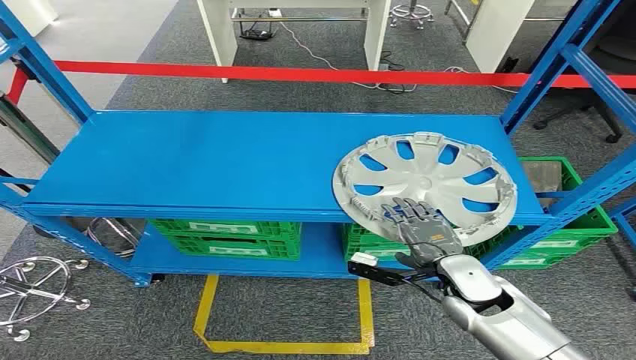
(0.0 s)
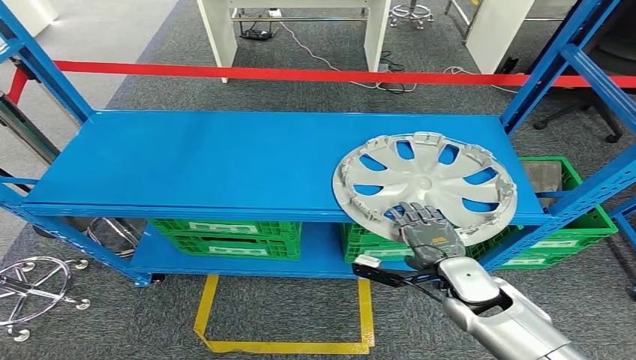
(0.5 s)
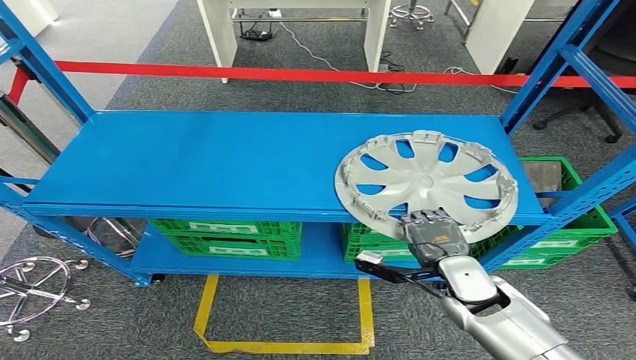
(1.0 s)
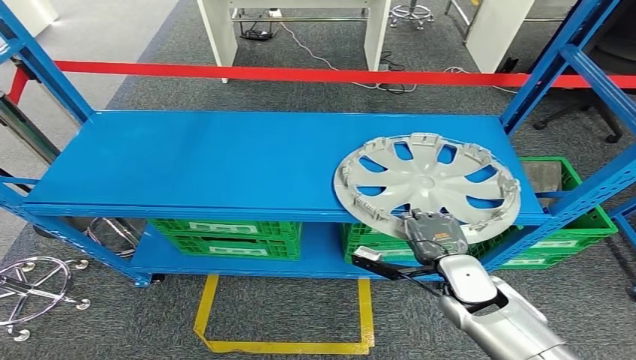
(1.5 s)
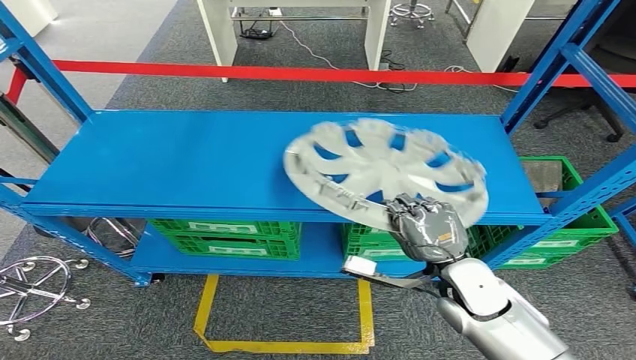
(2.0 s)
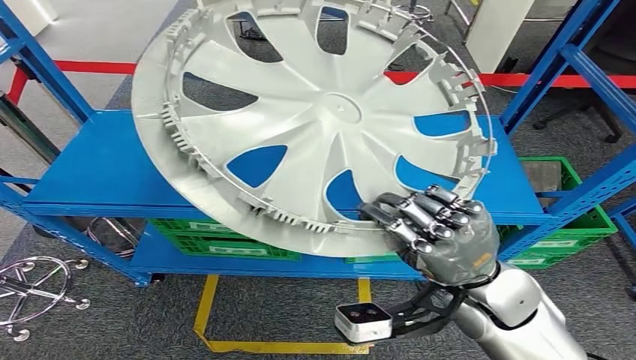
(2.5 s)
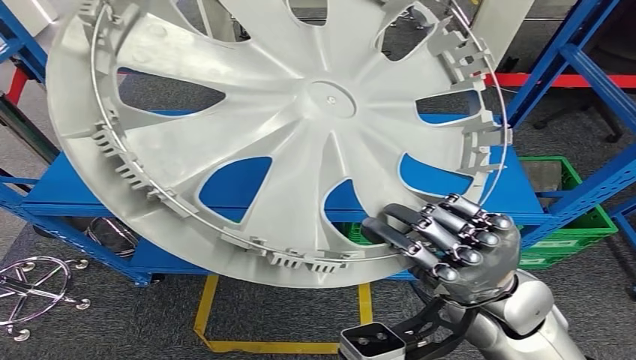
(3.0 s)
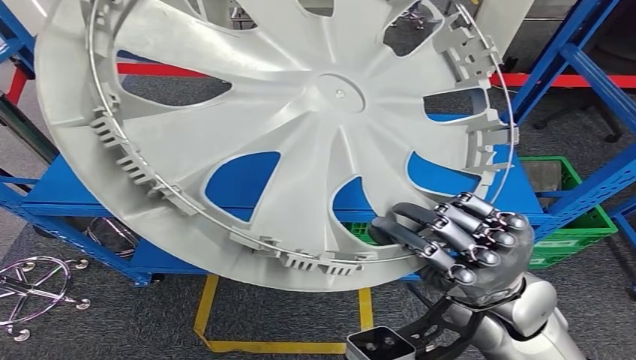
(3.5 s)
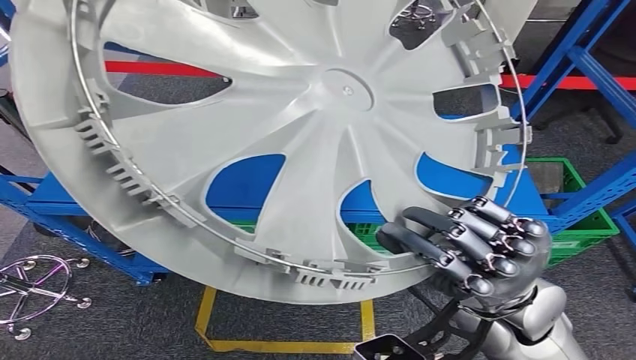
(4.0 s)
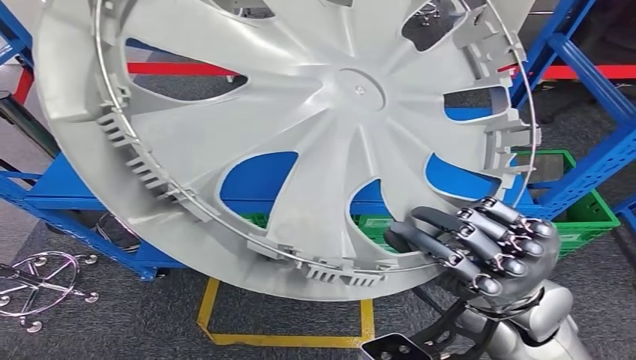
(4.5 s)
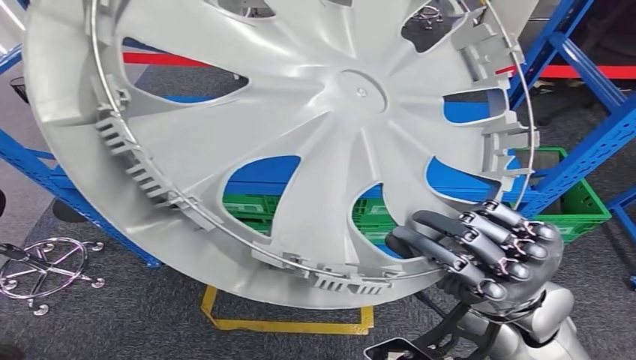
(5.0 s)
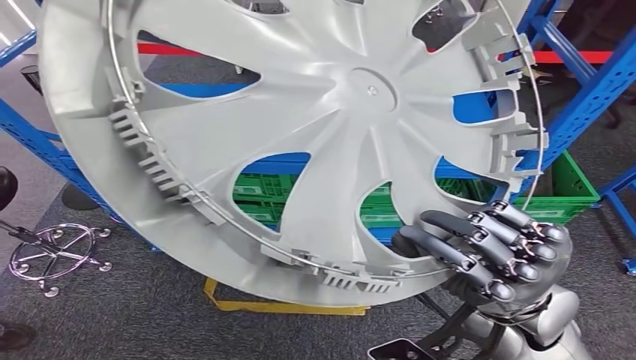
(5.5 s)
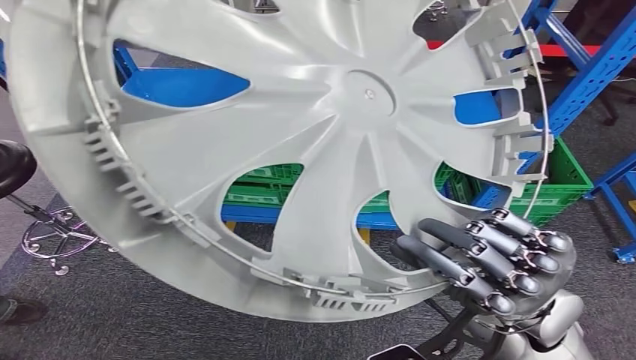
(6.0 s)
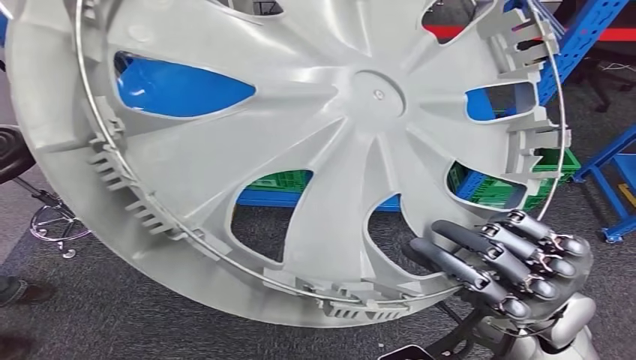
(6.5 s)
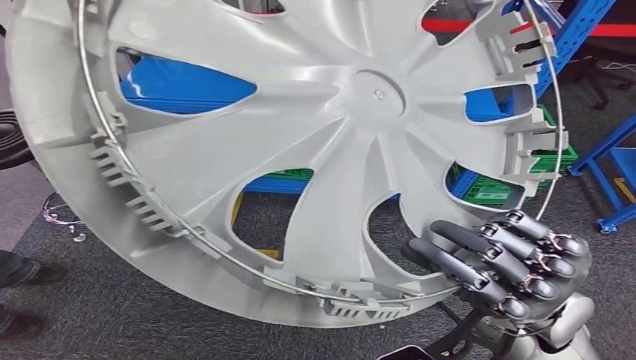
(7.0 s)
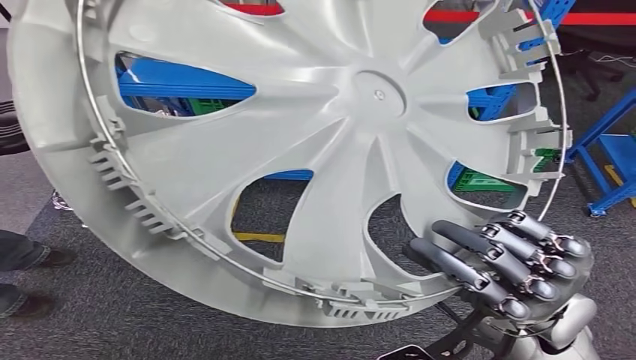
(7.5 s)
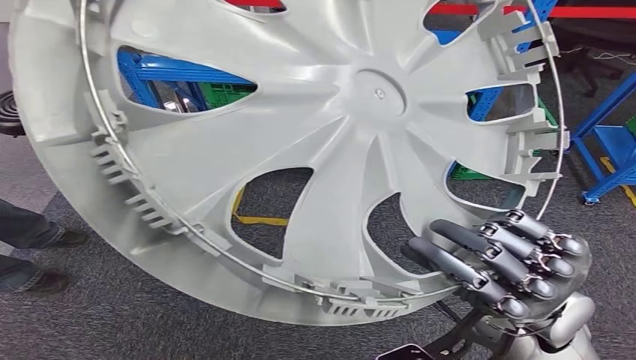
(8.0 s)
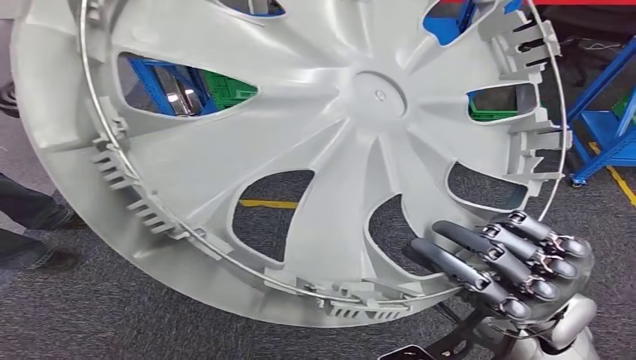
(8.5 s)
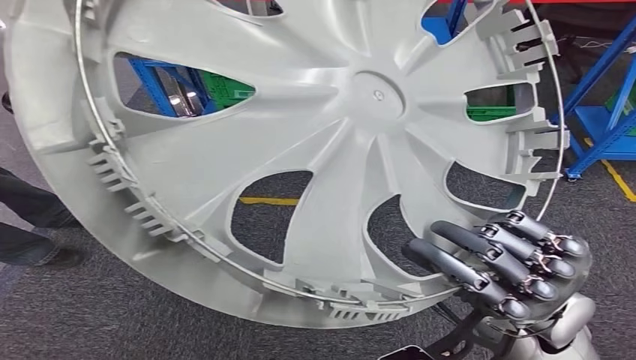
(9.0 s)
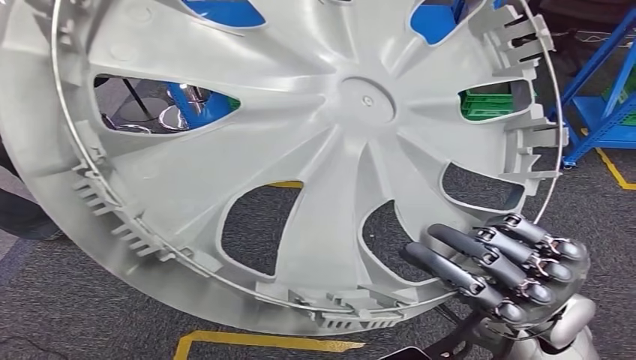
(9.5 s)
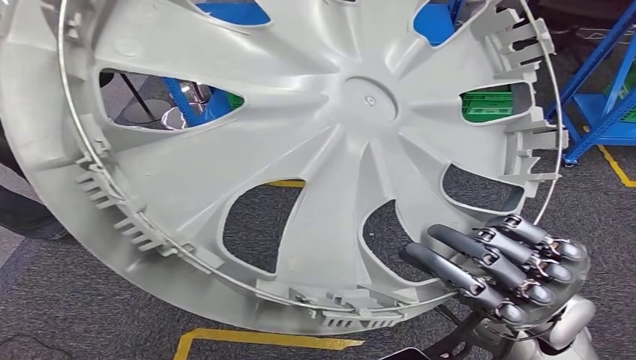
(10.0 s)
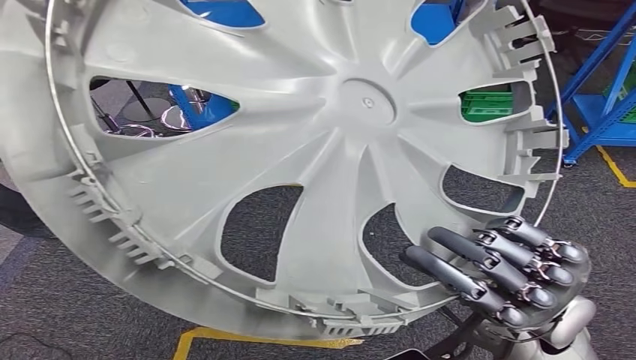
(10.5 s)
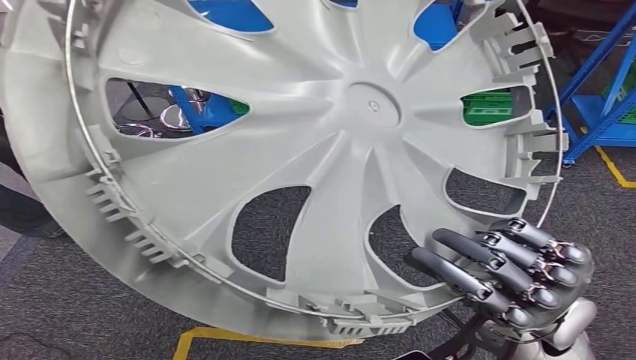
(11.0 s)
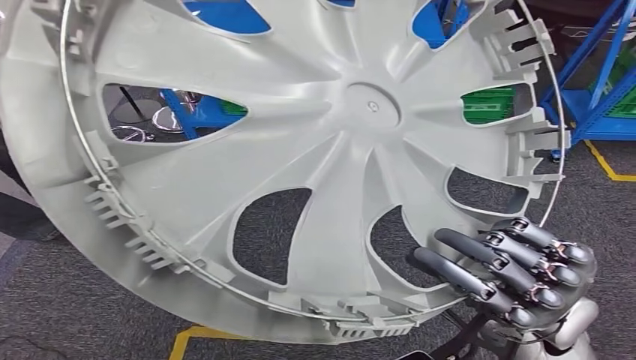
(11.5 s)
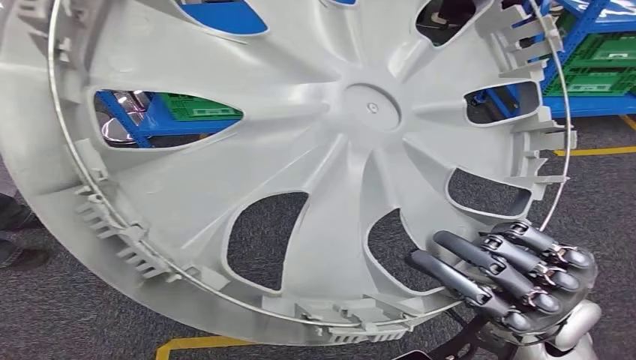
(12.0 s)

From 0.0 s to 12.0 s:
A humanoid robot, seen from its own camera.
Step, from 0.0 s to 3.5 s: Pick up the small component from the shelf.

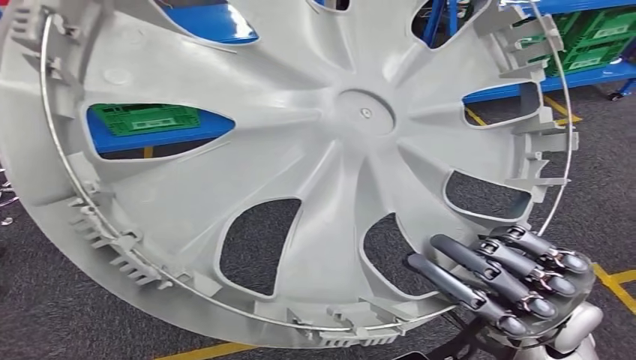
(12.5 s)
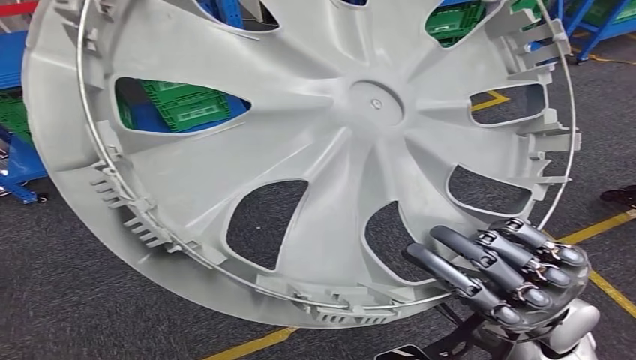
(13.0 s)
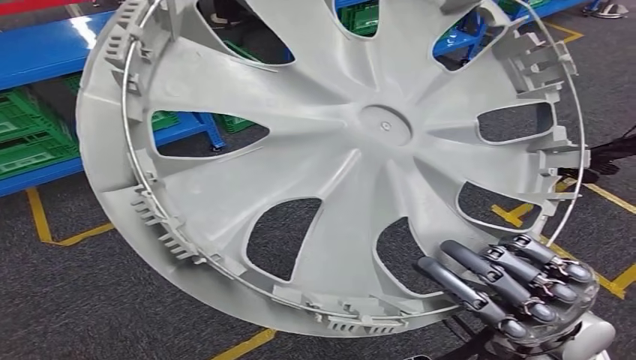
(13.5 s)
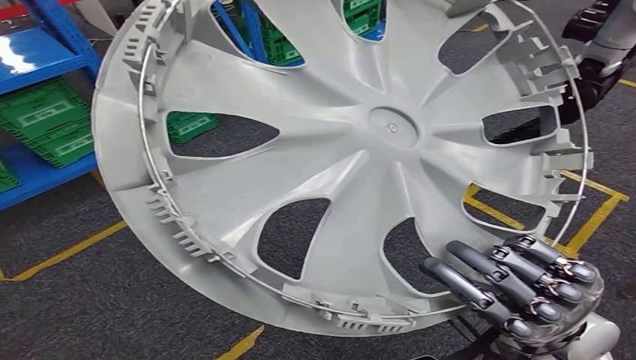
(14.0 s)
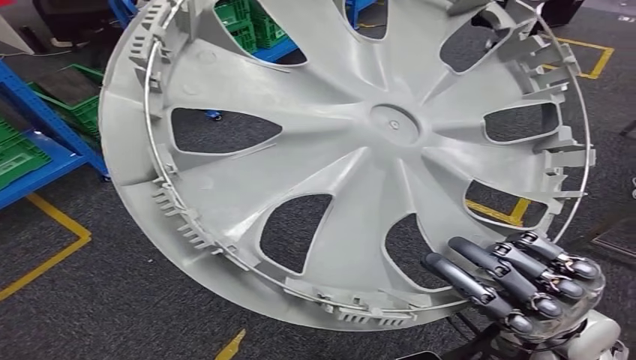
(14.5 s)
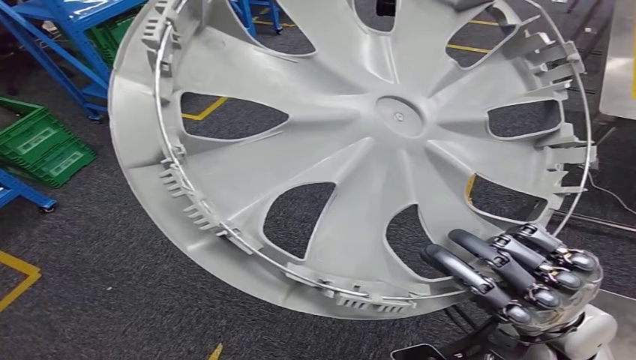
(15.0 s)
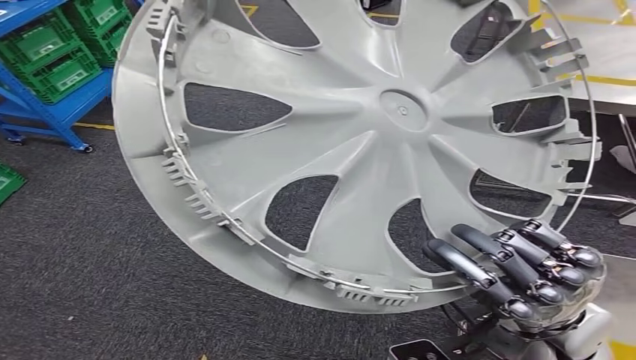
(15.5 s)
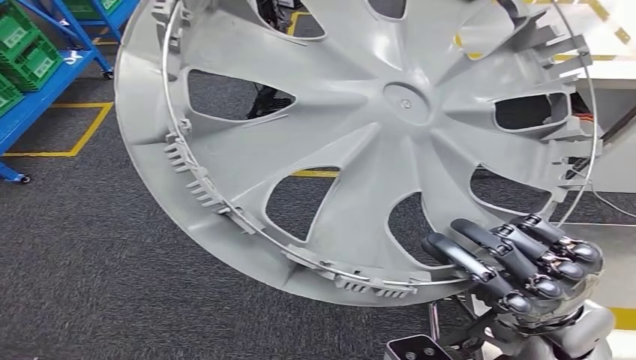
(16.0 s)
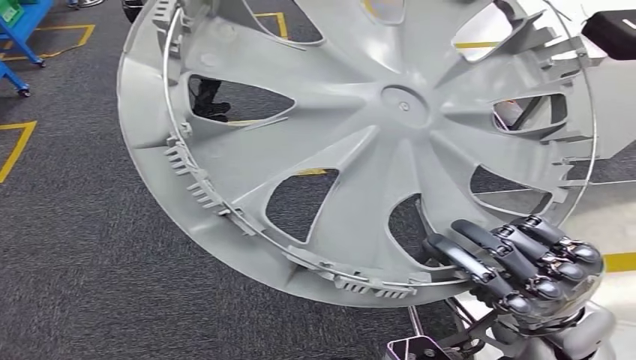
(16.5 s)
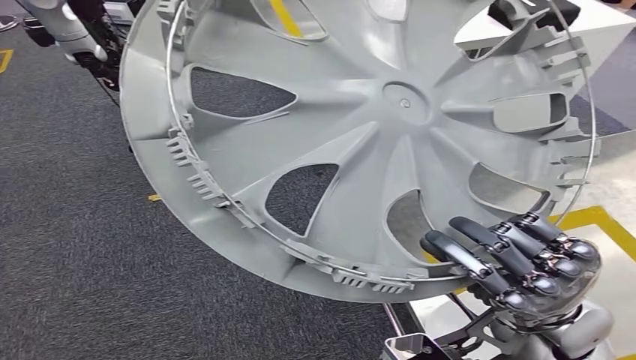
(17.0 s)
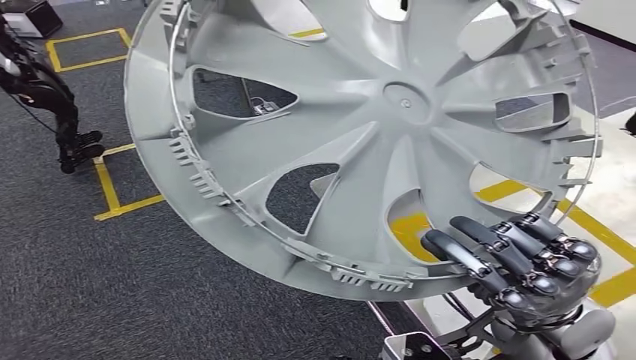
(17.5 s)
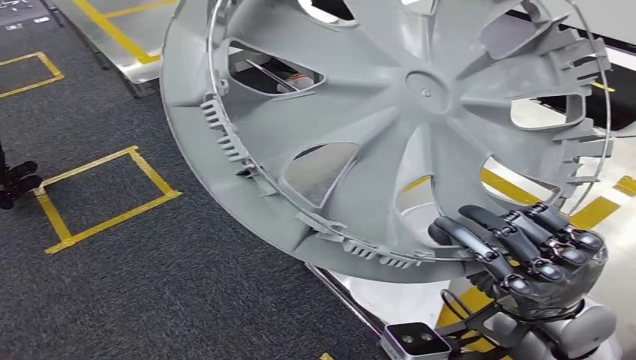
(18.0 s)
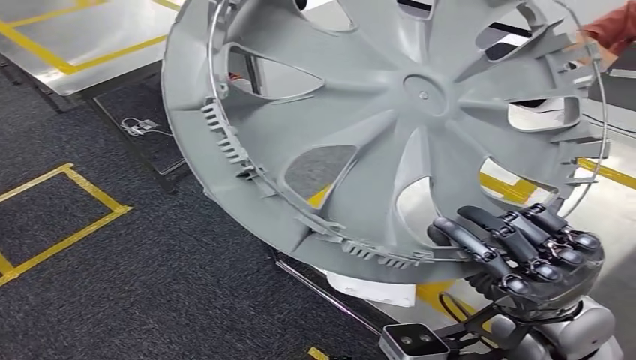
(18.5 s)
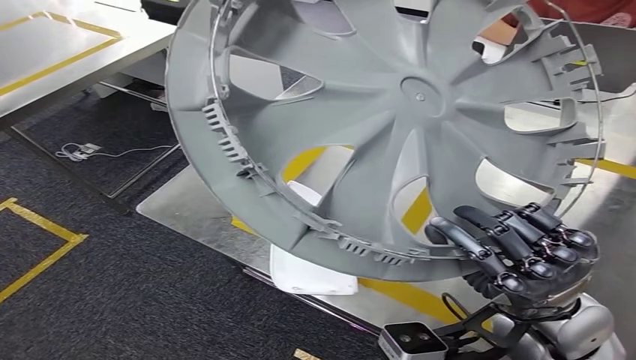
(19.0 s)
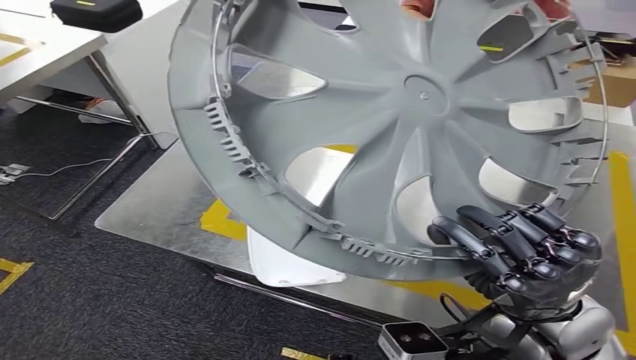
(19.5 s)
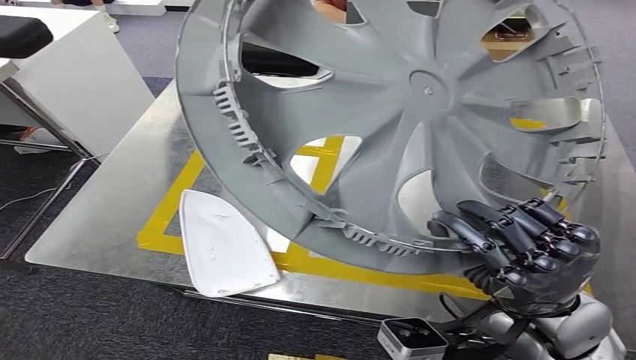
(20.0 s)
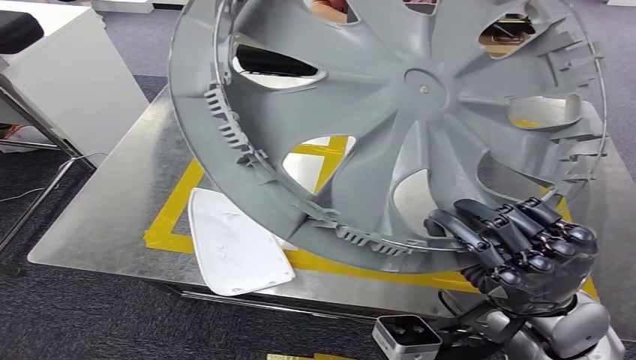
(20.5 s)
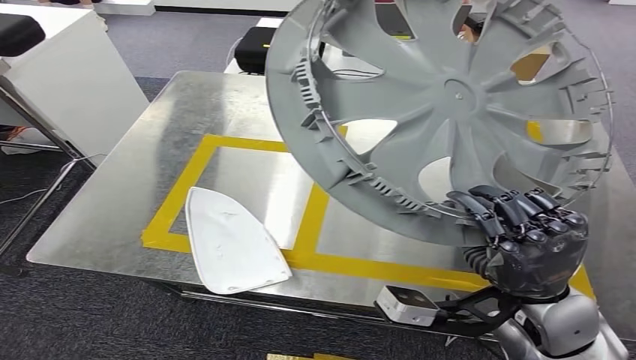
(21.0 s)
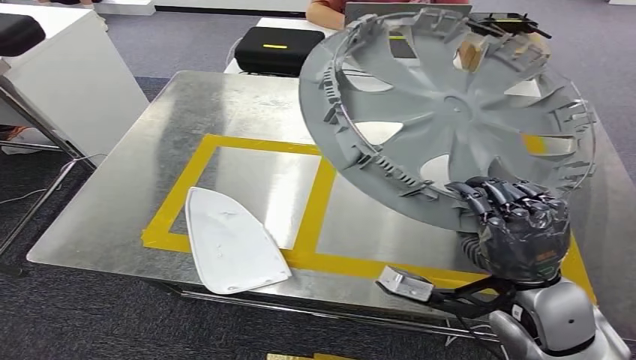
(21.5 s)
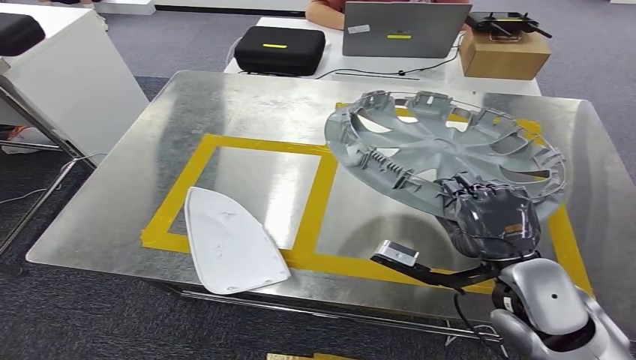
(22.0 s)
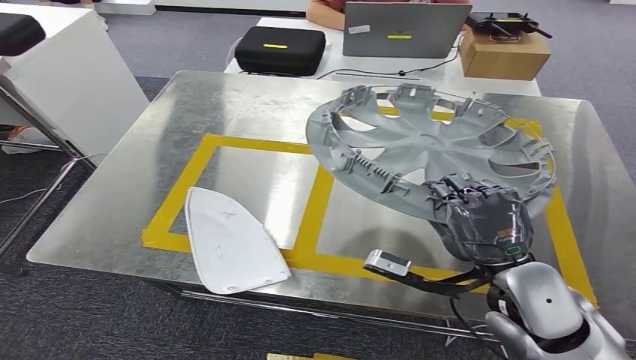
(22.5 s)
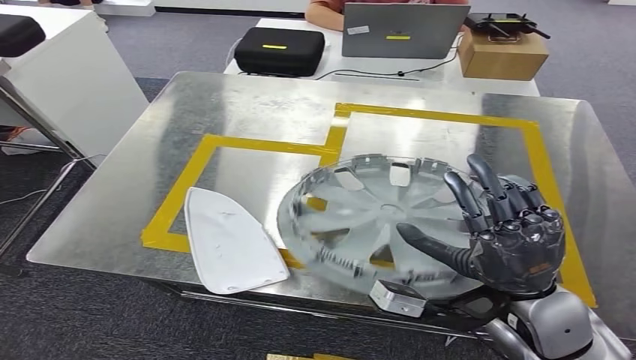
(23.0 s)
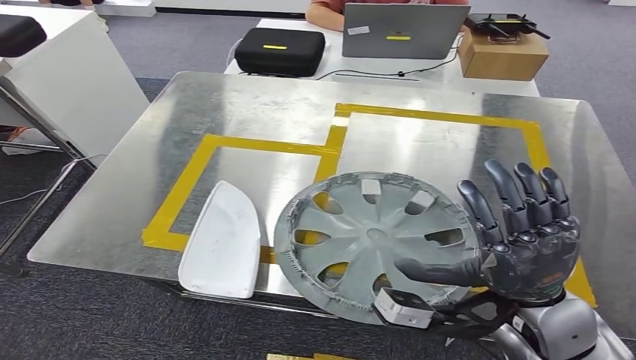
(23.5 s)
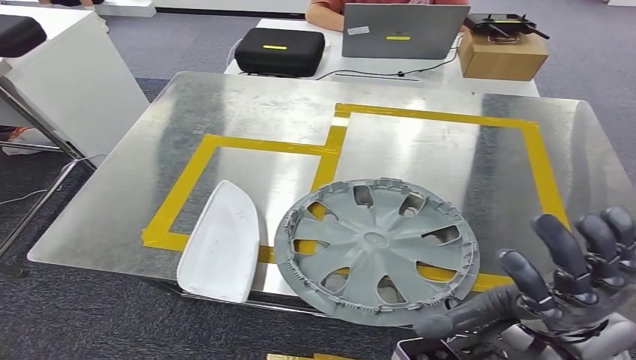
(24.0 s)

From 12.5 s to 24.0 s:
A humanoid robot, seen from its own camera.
Step, from 12.5 s to 21.5 s: Move the small component to the workbench.
